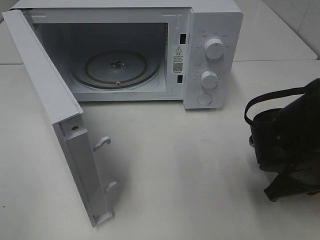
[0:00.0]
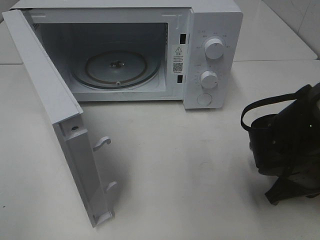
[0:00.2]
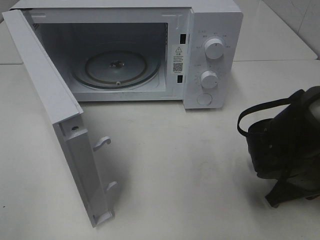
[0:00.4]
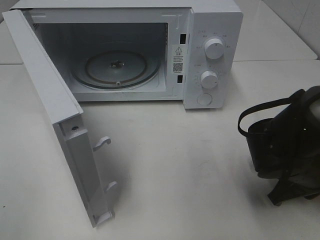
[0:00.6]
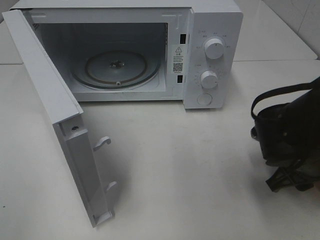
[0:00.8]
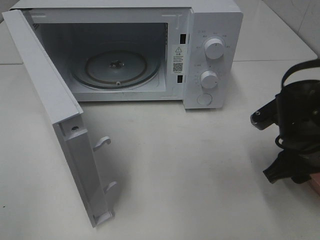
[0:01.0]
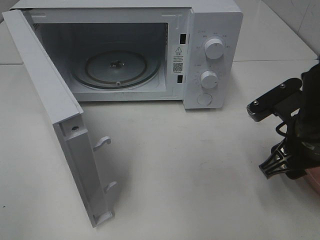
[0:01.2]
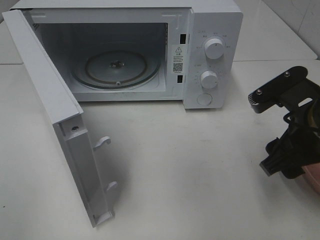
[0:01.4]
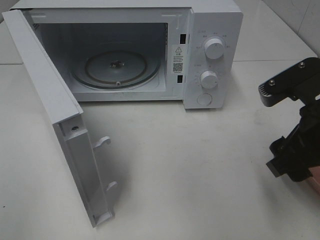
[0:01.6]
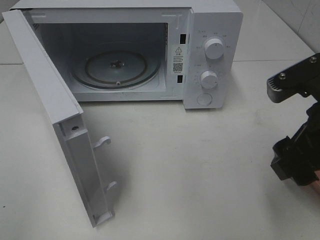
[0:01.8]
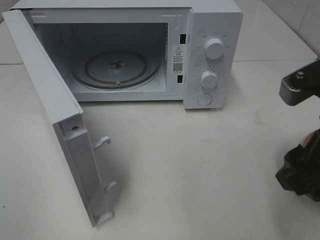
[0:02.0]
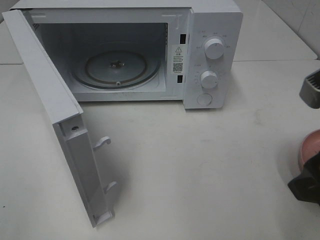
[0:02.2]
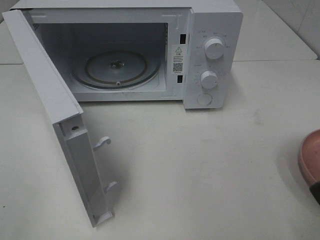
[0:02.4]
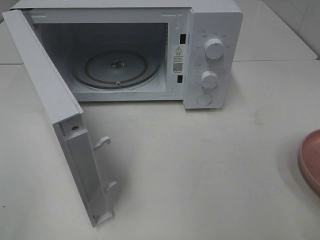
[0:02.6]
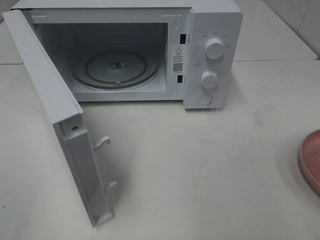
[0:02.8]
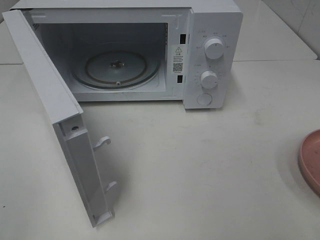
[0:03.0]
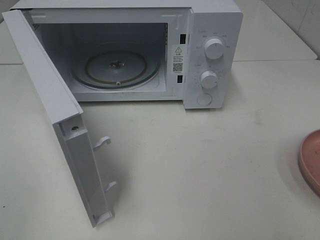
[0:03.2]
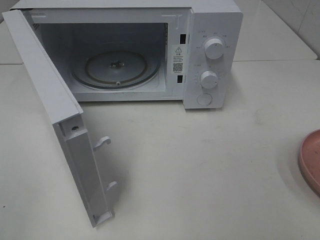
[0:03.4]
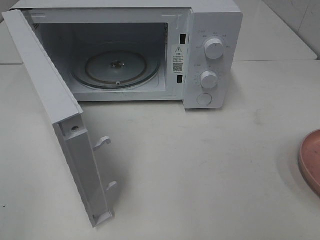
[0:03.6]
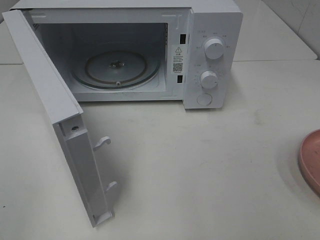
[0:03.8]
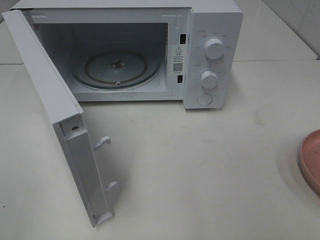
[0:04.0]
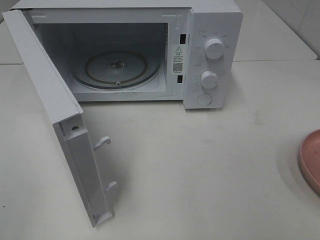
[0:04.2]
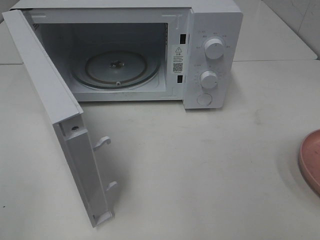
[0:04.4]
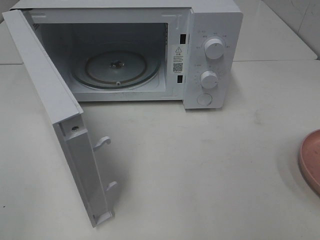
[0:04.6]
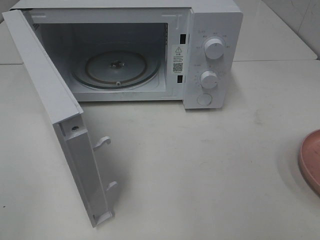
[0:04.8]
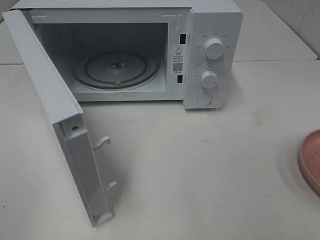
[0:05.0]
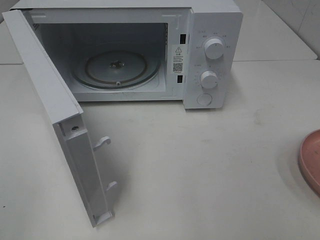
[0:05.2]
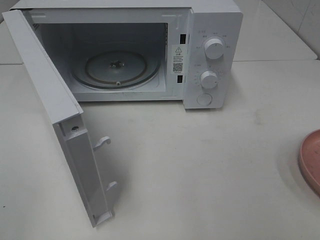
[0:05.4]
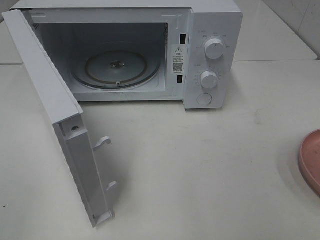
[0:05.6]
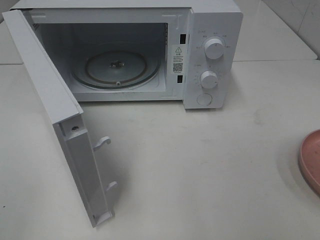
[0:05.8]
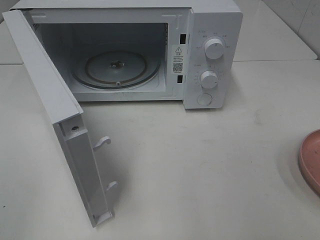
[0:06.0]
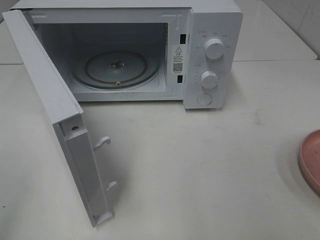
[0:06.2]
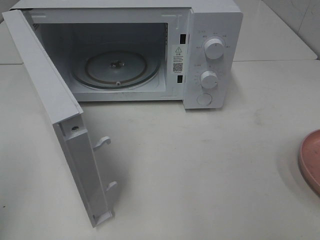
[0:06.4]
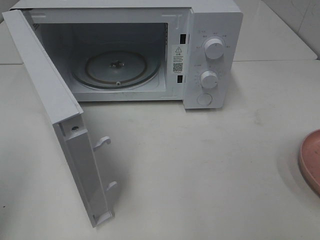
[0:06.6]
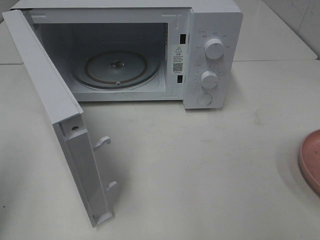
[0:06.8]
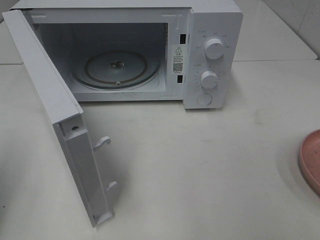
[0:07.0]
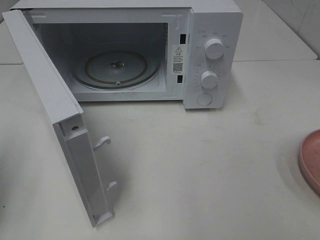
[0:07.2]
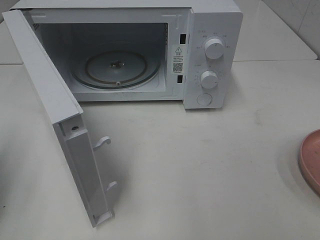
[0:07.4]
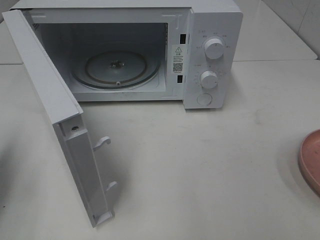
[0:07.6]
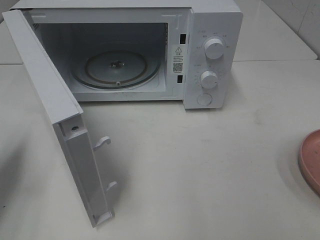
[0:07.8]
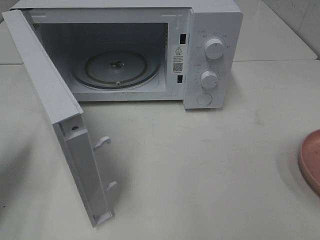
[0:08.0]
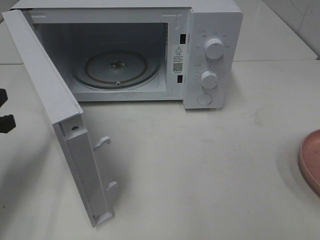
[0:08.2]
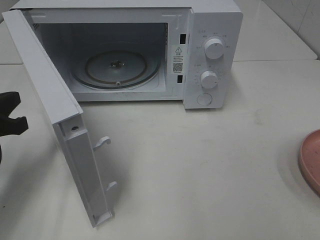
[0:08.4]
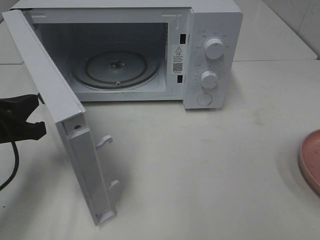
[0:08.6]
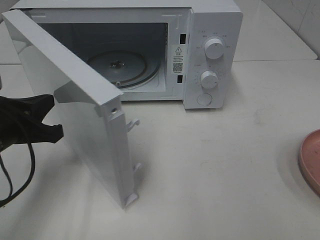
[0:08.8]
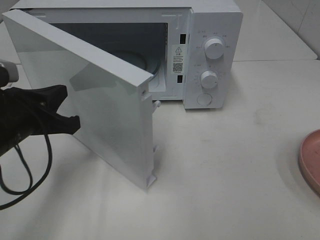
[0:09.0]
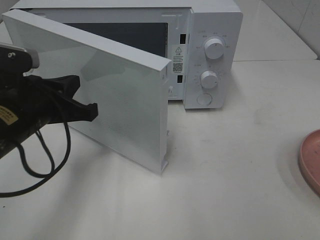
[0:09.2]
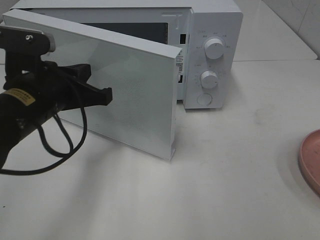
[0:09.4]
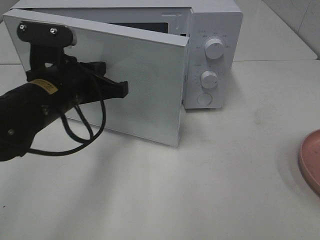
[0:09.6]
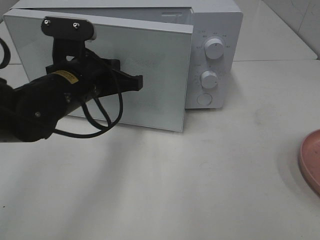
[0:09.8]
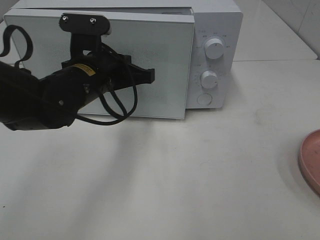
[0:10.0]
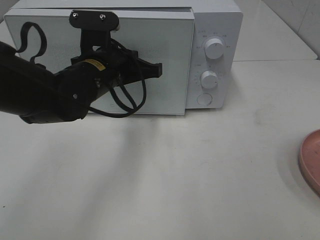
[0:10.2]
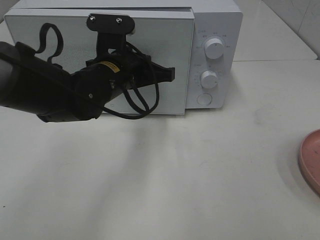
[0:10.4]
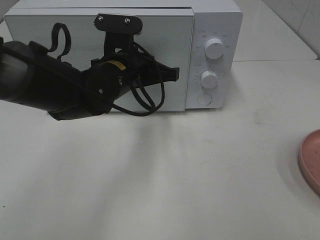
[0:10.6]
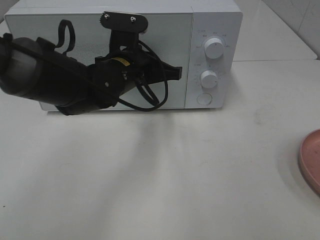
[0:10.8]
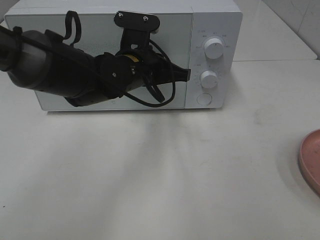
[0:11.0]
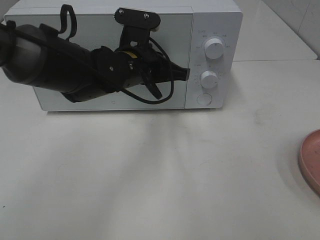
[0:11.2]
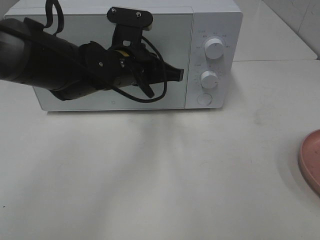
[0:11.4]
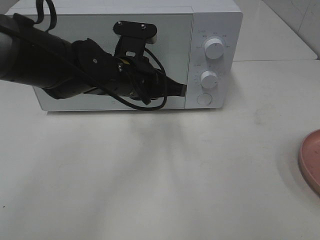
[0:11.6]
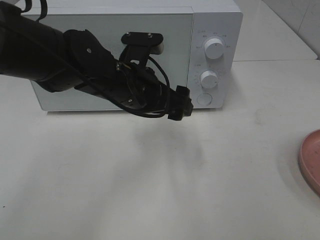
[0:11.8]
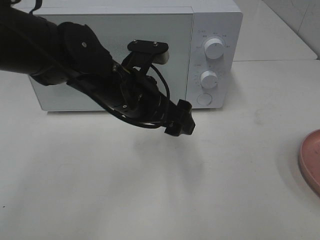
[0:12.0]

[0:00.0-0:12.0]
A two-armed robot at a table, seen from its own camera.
Task of the whole recording: Heat the burger.
Step, 0:01.4 to 0:11.6: Left hand: close the microwave door.
0:00.0 to 0:01.6: The right gripper is displaced upward by about 10 cm, and opens.
0:01.6 to 0:03.0: The right gripper heads backward, to the right and upward, covering some 15 cm.
0:06.0 to 0:07.6: The left gripper travels forward and downward by about 20 cm, and closes.
0:07.6 to 0:09.0: The left gripper is displaced to the right by about 15 cm.
0:09.0 to 0:10.4: The left gripper is displaced to the right and forward by some 15 cm.
0:10.4 to 0:12.0: The left gripper opens.

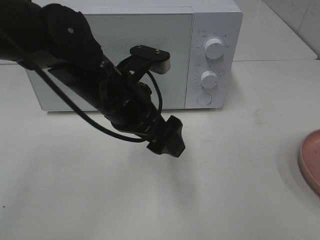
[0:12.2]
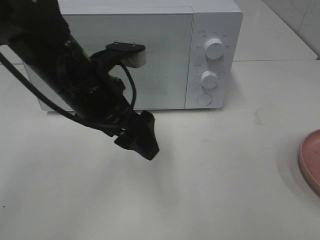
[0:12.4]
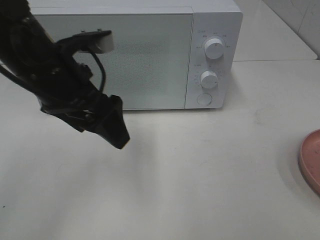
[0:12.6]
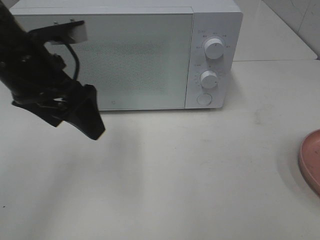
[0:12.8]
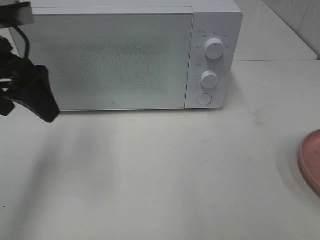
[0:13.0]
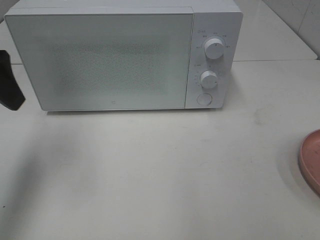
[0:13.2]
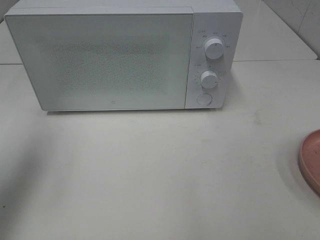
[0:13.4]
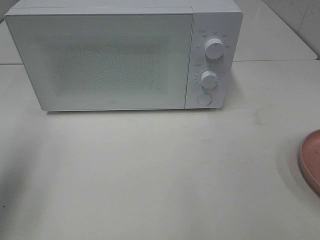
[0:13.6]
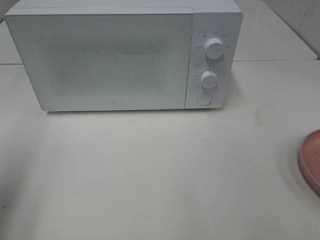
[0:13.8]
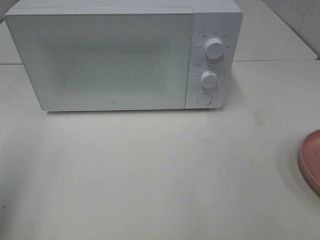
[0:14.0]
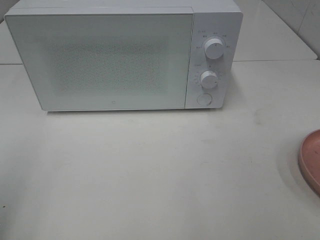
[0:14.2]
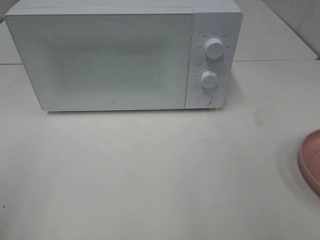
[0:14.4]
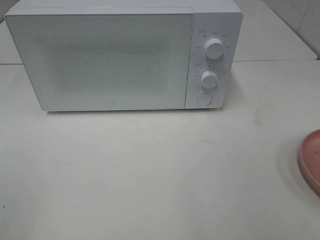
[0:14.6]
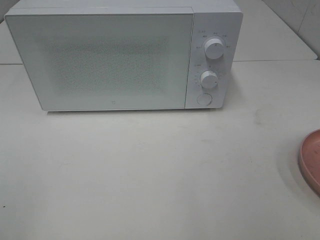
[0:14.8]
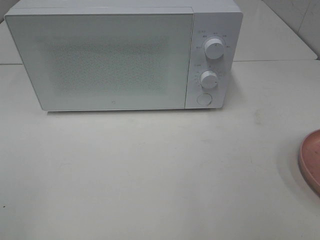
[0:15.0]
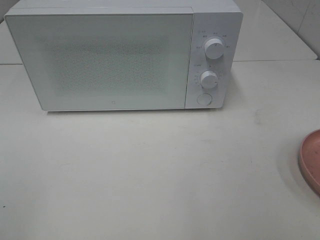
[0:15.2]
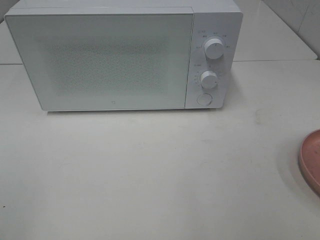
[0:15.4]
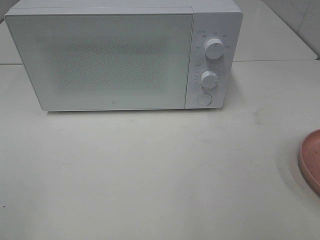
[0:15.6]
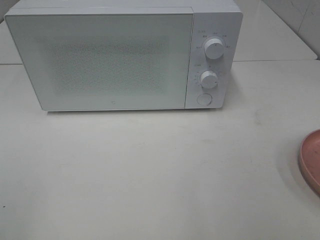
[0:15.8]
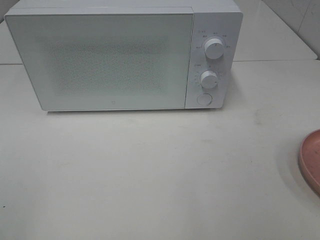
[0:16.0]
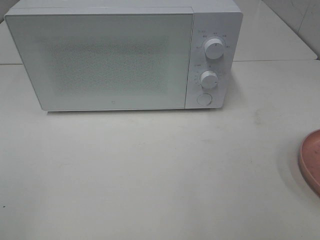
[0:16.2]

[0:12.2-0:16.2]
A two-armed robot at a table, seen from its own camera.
Task of the whole recording: Heat the burger.
0:12.2 to 0:13.6: The left gripper shifts roughly 25 cm to the left.
0:13.6 to 0:14.8: The left gripper travels backward by roughly 20 cm.
0:14.8 to 0:16.2: Neither gripper changes place.

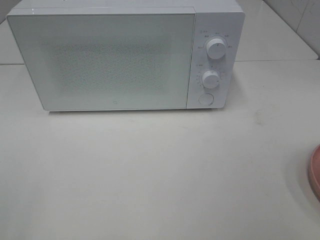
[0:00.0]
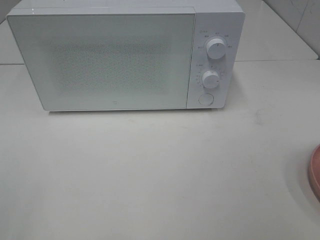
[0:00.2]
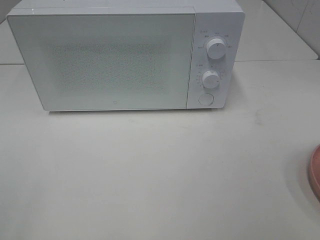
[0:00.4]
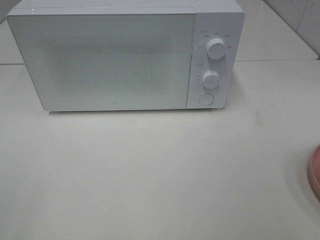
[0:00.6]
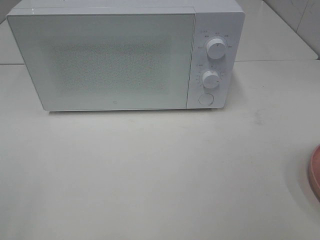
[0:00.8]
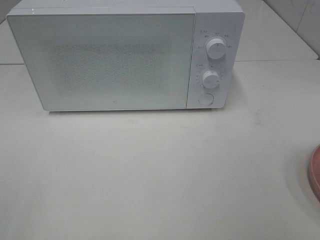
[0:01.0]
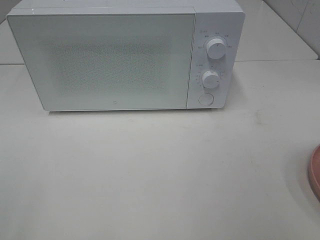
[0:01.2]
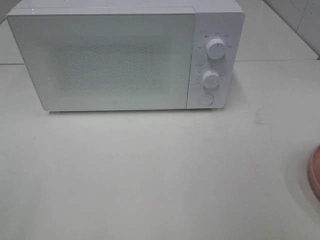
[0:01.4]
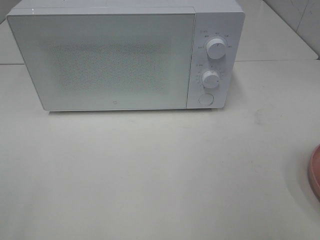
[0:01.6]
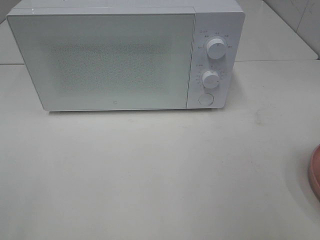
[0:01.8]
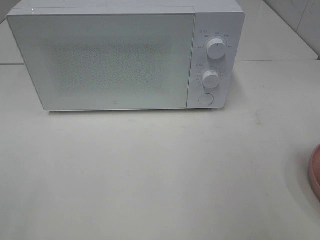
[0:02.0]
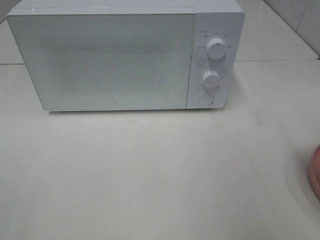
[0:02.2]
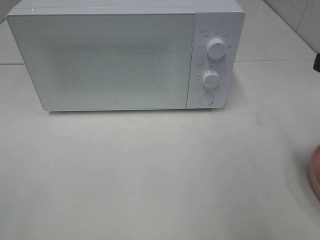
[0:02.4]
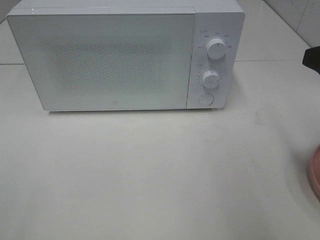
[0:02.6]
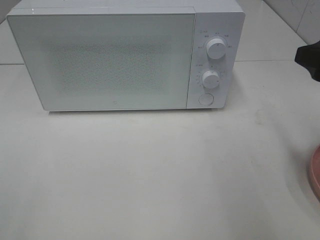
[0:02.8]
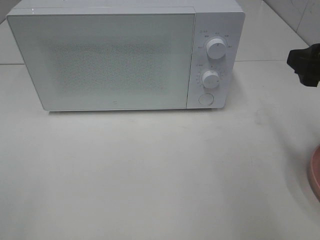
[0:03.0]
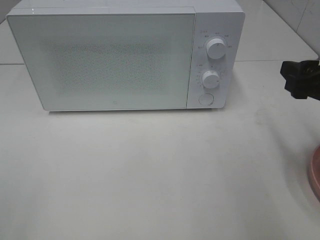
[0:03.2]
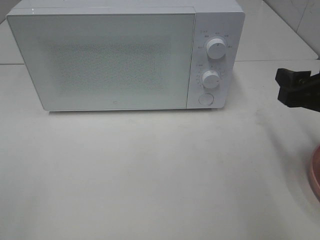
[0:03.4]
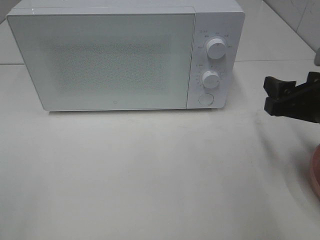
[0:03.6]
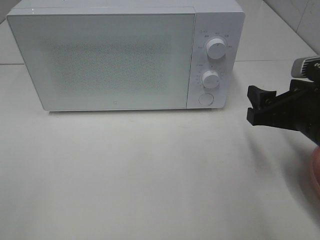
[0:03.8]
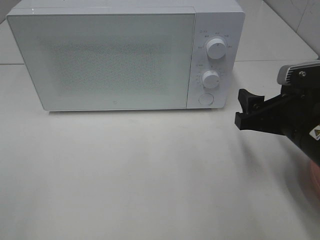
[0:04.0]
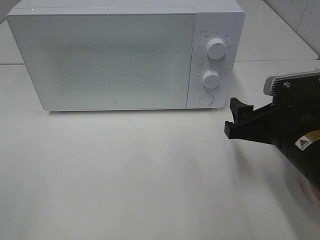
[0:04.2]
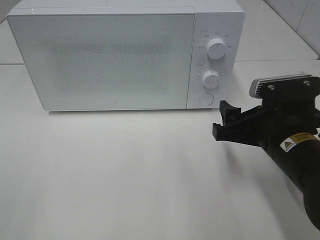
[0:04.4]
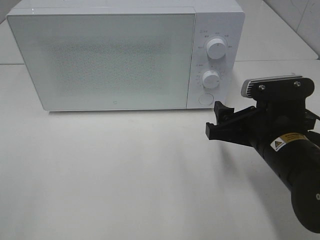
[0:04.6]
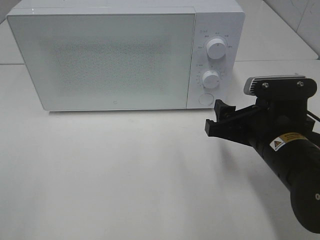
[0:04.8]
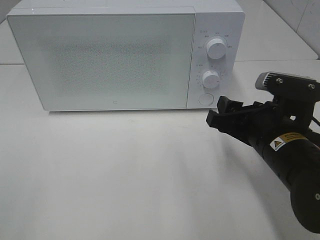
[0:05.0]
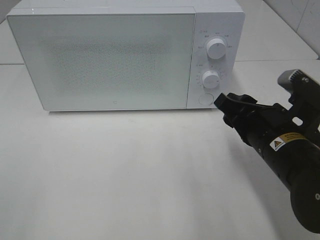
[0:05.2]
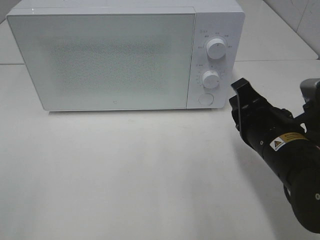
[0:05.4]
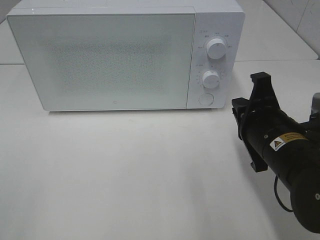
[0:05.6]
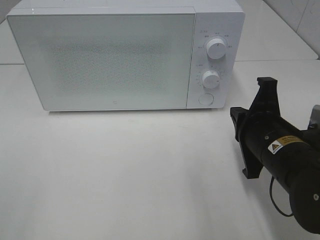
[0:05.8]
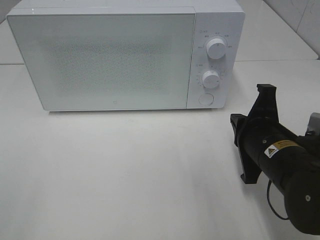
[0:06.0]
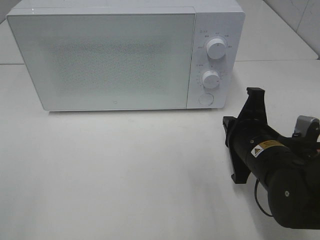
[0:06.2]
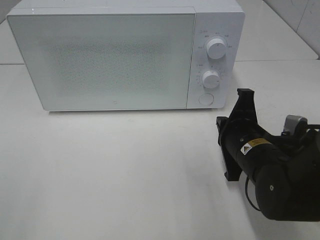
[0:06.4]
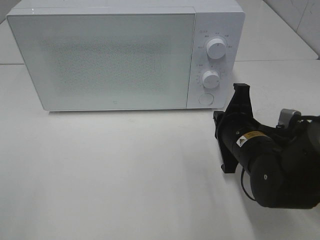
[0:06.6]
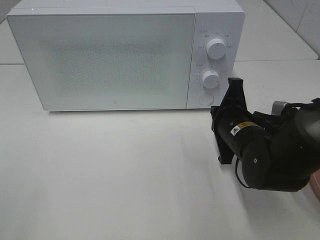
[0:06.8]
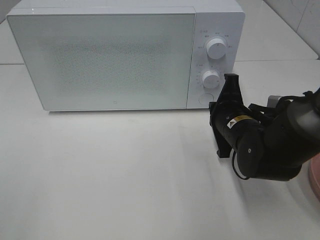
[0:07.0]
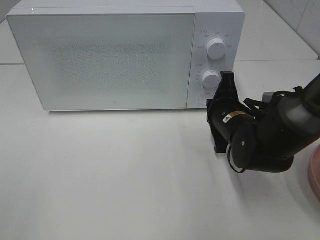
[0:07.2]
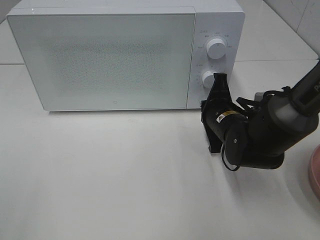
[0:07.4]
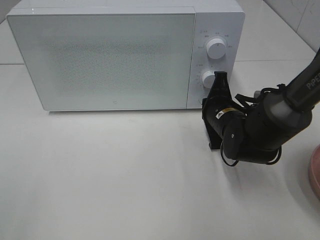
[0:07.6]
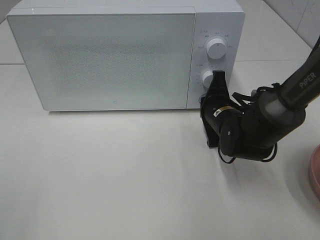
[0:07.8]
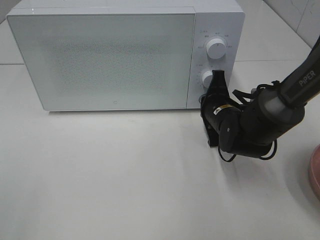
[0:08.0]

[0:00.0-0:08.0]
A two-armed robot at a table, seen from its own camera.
Task of the whole recording: Heat the burger.
0:01.6 to 0:03.2: The right gripper shifts some 15 cm forward and downward.
0:03.2 to 0:04.8: The right gripper is displaced to the left and downward by some 10 cm.
0:04.8 to 0:06.4: The right gripper ends up roughly 5 cm from where it was, and closes up.
0:06.4 to 0:08.0: The right gripper is displaced forward by approximately 10 cm.
